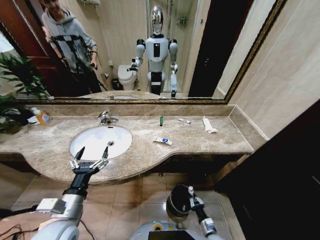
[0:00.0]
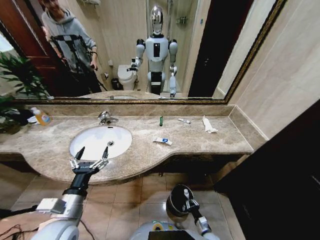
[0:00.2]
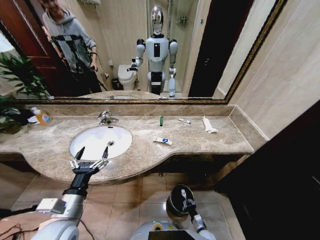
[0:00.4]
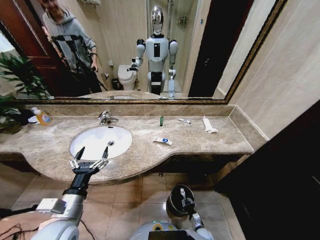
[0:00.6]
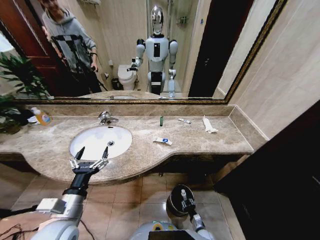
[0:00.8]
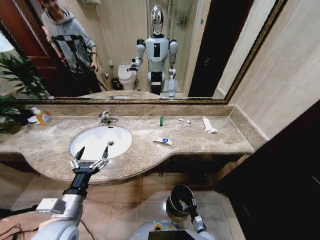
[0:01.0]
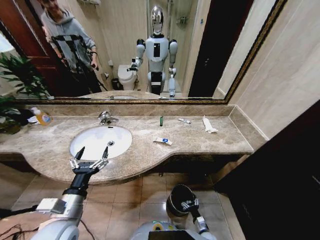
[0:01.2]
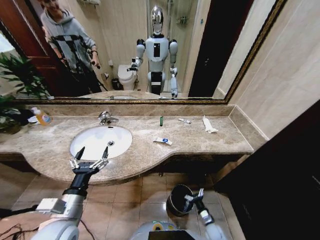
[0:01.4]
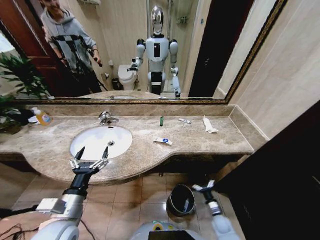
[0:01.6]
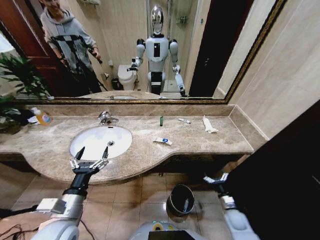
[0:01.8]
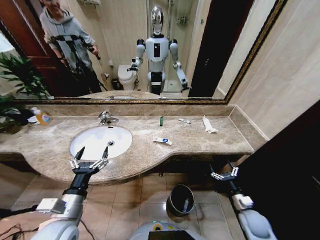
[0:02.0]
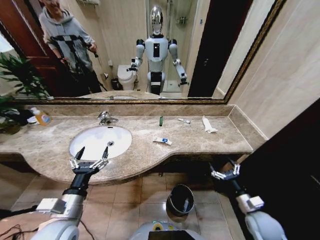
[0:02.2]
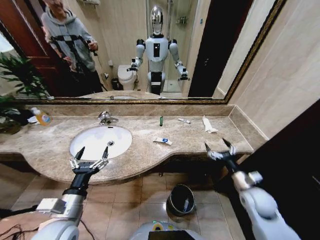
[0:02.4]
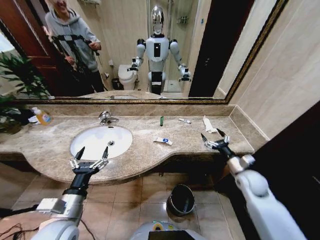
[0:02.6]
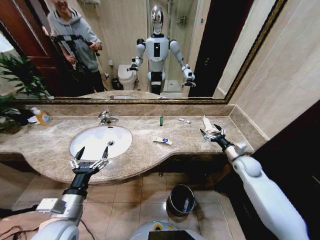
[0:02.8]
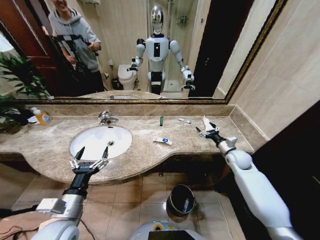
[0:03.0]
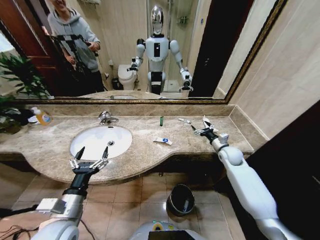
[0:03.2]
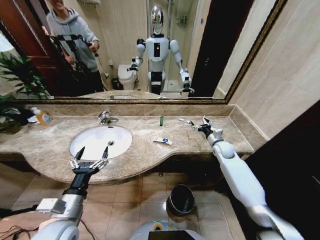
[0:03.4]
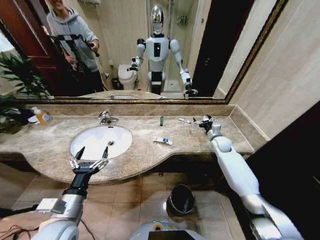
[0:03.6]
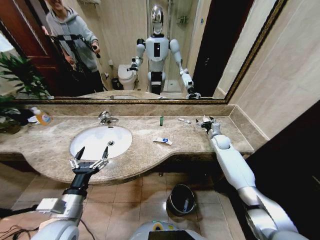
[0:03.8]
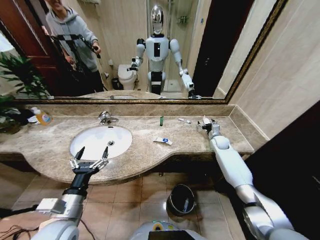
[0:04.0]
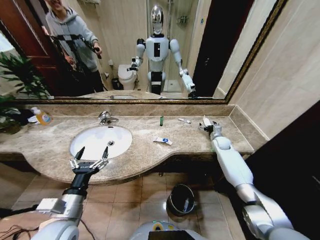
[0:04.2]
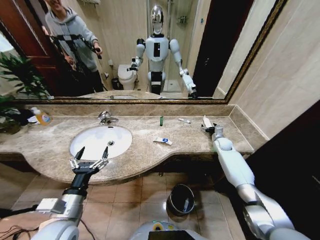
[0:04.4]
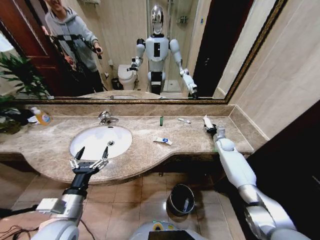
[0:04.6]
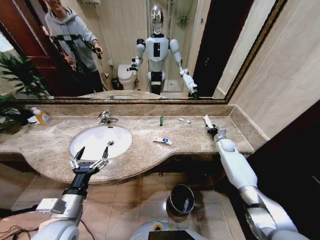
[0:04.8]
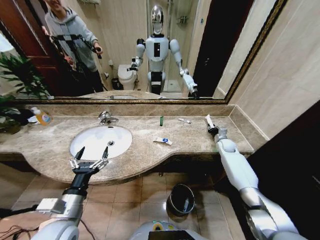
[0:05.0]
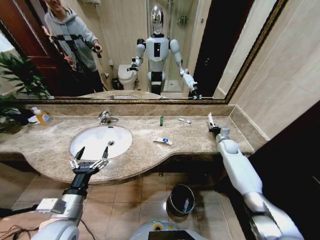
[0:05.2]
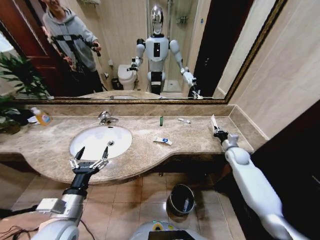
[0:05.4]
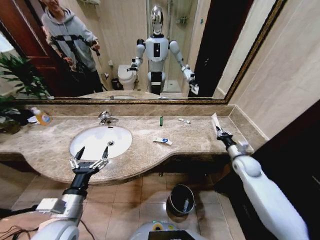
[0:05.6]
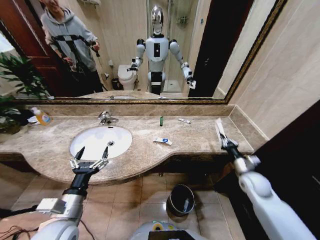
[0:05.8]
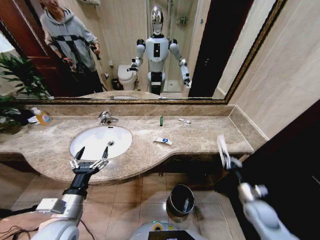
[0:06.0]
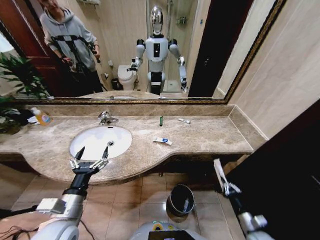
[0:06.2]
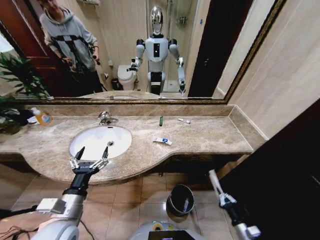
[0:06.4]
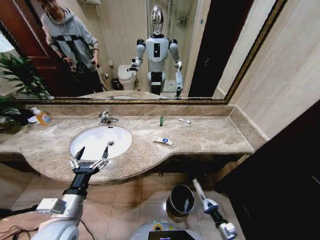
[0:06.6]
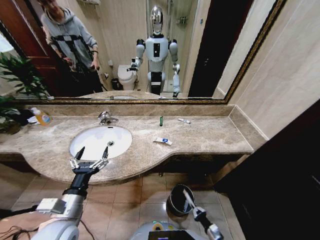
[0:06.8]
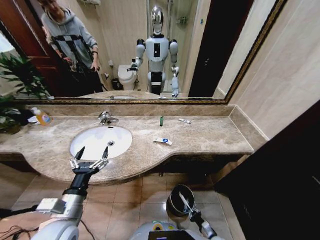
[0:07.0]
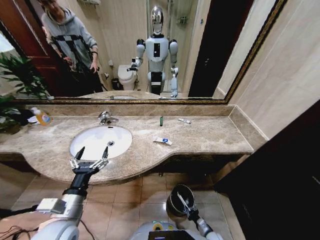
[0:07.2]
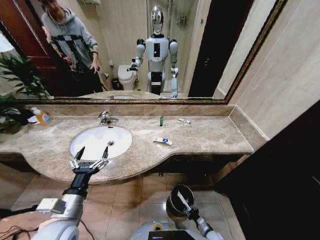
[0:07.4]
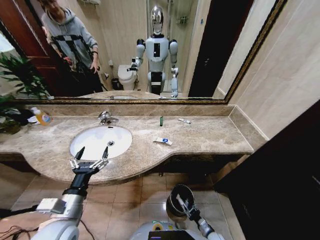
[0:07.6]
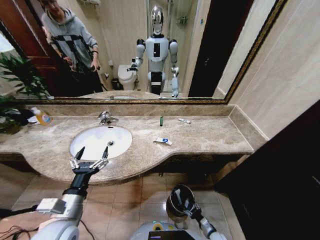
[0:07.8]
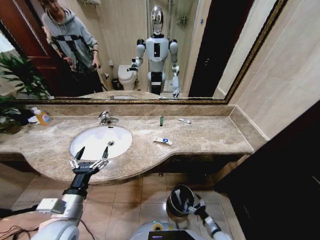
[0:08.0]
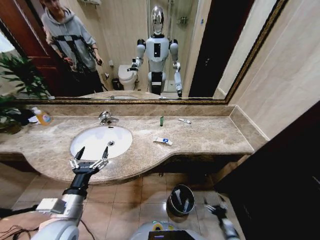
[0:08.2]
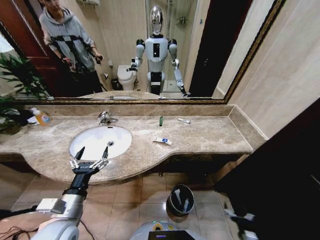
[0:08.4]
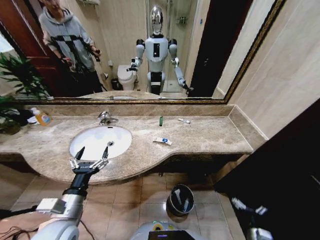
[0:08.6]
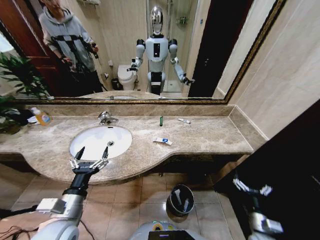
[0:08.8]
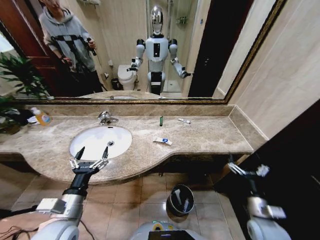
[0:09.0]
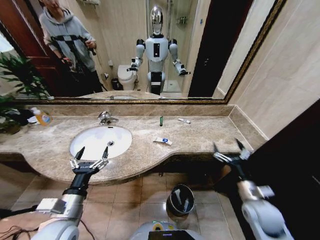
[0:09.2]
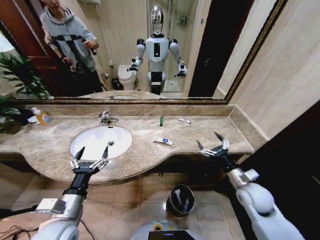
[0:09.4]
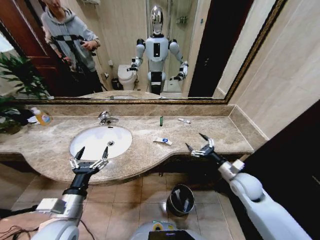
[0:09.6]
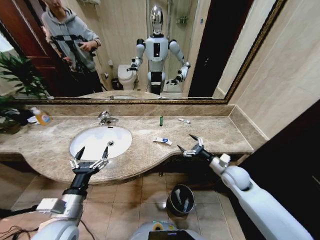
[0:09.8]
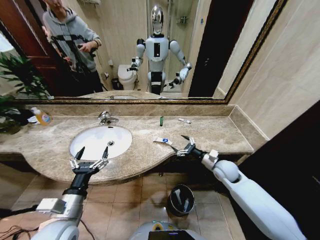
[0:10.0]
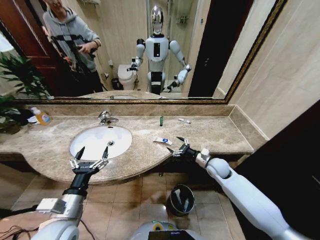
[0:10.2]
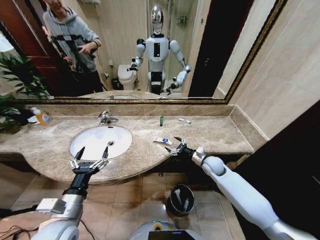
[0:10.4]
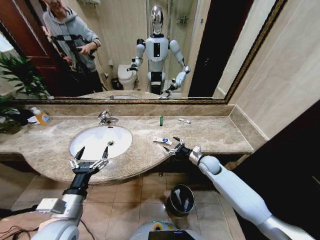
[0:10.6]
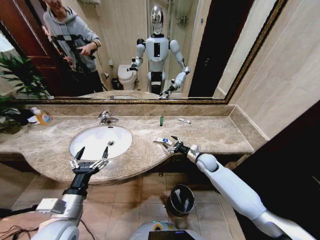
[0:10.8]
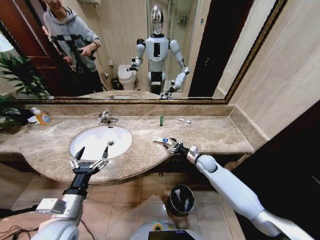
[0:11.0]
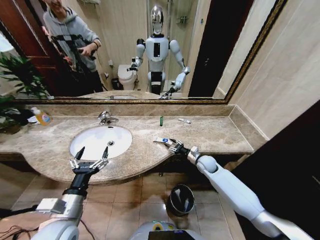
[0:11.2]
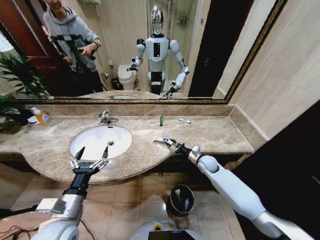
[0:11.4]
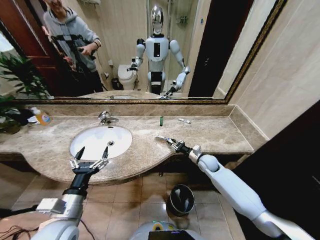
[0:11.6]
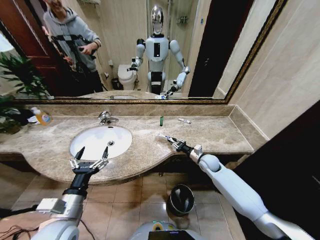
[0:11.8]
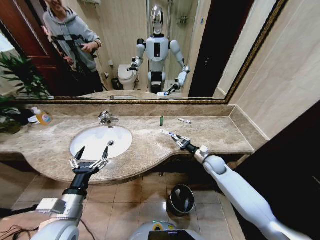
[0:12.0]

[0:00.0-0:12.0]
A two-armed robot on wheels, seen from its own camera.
Task of the whole recording: Pick up the trash from the sink and place it in the trash bin.
0:00.0 to 0:01.6: The right gripper is displaced forward and to the right by roughly 10 cm, moves approximately 10 cm downward and comes back, and opens its fingers.
0:01.6 to 0:03.0: The right gripper is displaced upward and forward by roughly 35 cm.
0:03.0 to 0:04.4: The right gripper shifts roughly 10 cm forward.
0:04.4 to 0:06.0: The right gripper travels backward by approximately 35 cm, and closes.
0:06.0 to 0:07.6: The right gripper is displaced downward by some 25 cm, and opens.
0:07.6 to 0:09.0: The right gripper travels upward by about 35 cm, and opens.
0:09.0 to 0:10.4: The right gripper is displaced forward by about 25 cm.
0:10.4 to 0:12.0: The right gripper closes up.

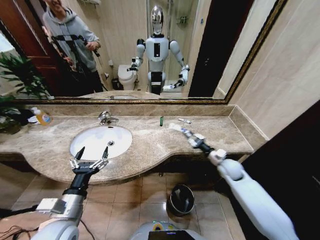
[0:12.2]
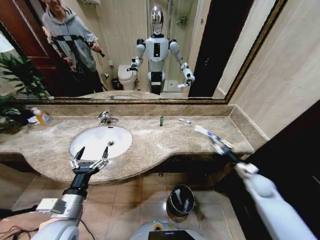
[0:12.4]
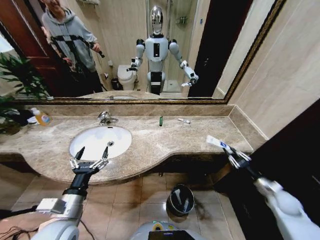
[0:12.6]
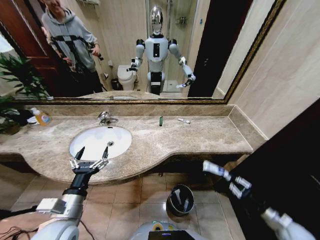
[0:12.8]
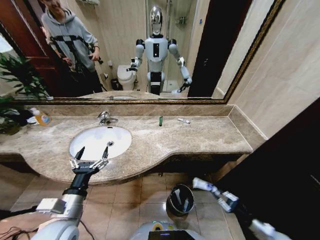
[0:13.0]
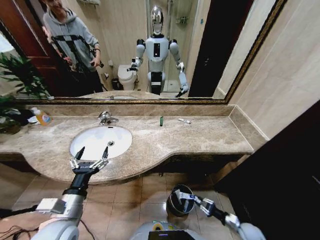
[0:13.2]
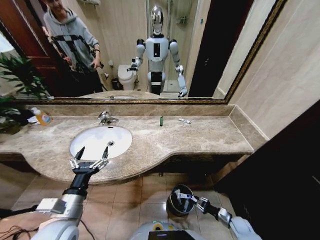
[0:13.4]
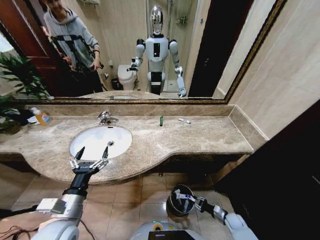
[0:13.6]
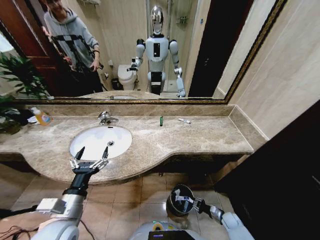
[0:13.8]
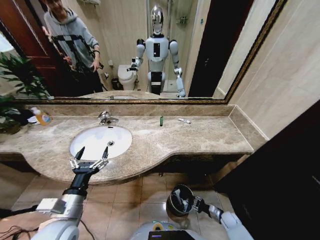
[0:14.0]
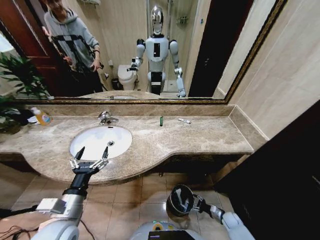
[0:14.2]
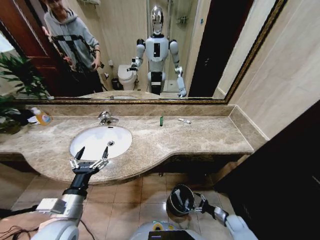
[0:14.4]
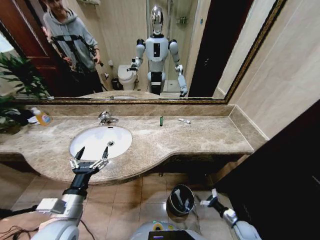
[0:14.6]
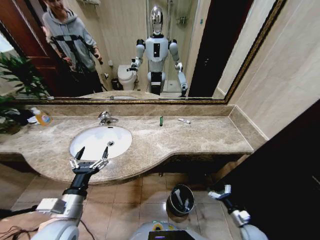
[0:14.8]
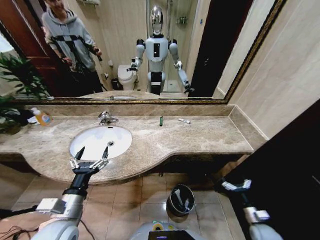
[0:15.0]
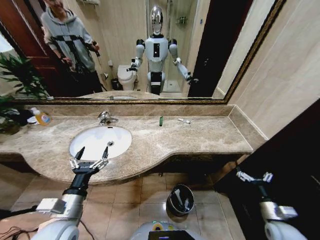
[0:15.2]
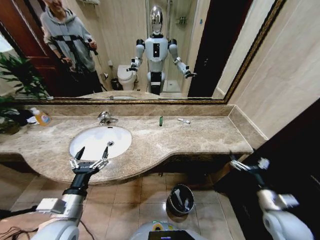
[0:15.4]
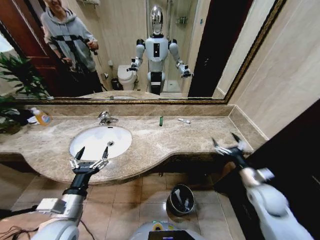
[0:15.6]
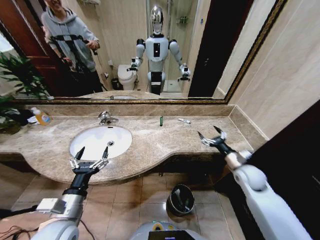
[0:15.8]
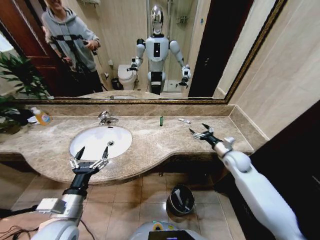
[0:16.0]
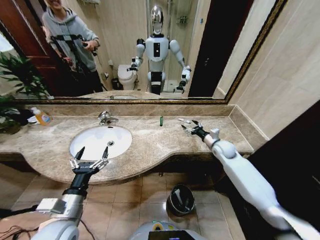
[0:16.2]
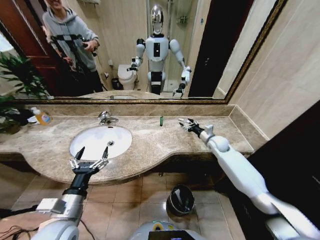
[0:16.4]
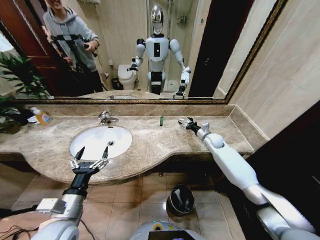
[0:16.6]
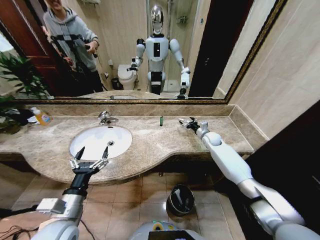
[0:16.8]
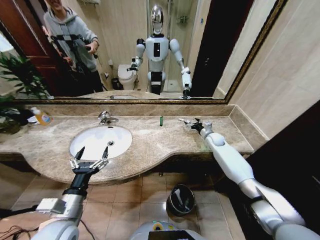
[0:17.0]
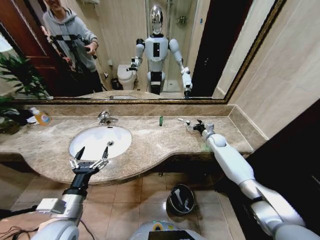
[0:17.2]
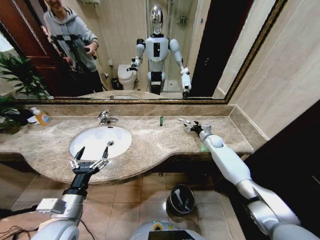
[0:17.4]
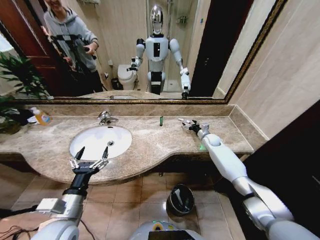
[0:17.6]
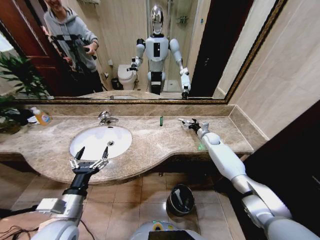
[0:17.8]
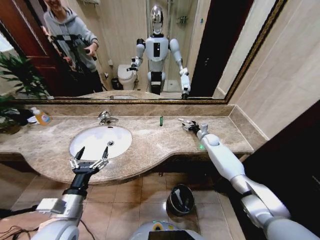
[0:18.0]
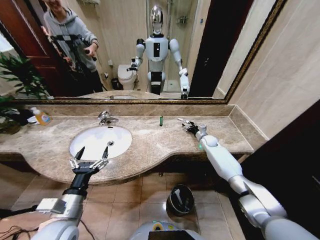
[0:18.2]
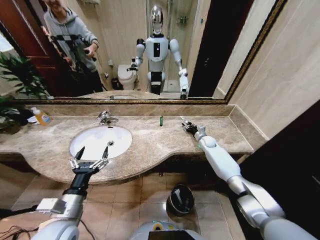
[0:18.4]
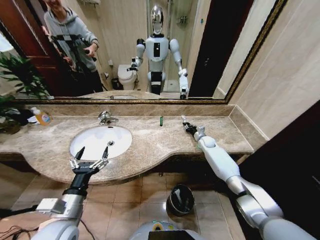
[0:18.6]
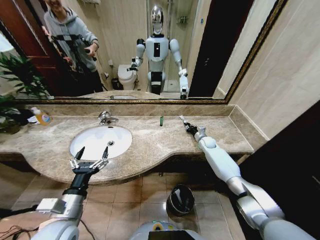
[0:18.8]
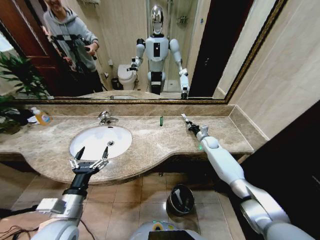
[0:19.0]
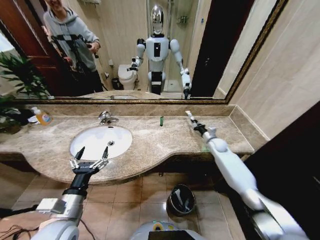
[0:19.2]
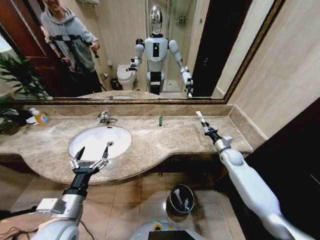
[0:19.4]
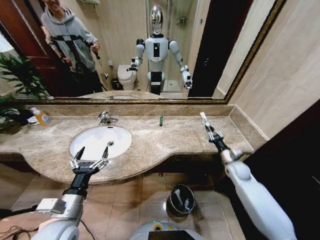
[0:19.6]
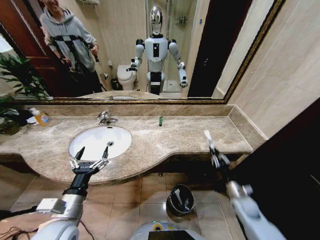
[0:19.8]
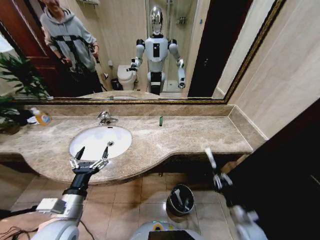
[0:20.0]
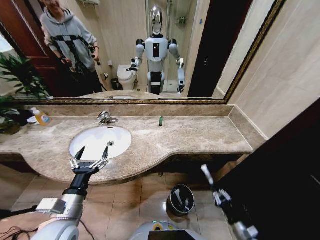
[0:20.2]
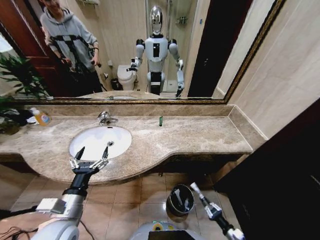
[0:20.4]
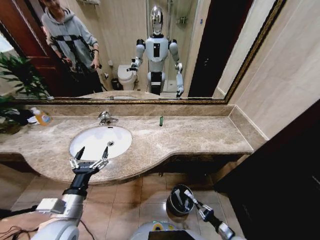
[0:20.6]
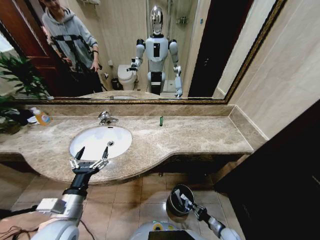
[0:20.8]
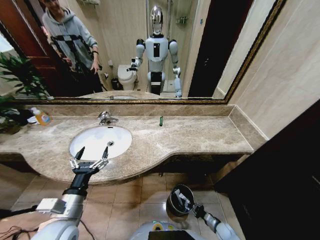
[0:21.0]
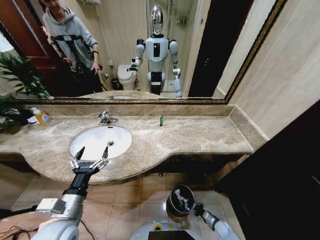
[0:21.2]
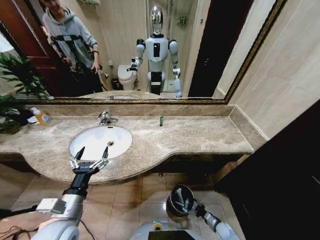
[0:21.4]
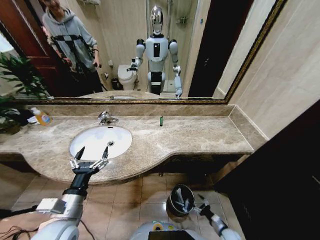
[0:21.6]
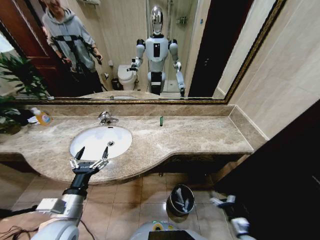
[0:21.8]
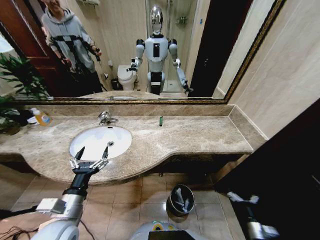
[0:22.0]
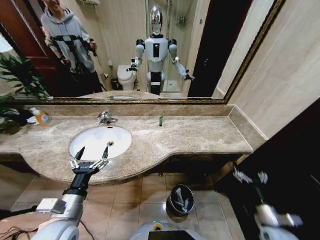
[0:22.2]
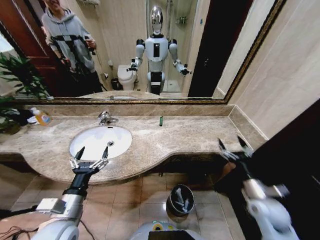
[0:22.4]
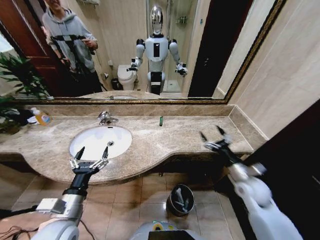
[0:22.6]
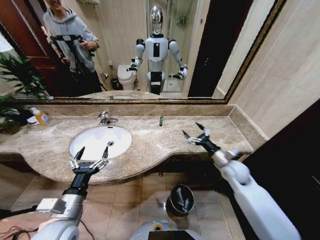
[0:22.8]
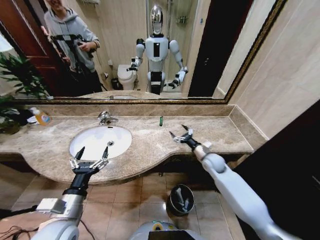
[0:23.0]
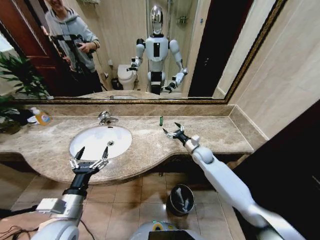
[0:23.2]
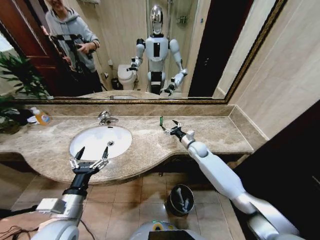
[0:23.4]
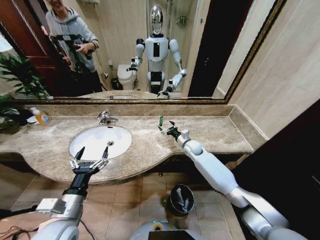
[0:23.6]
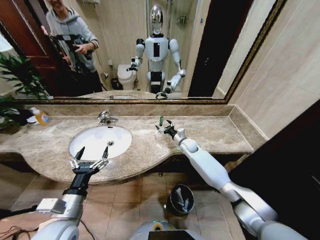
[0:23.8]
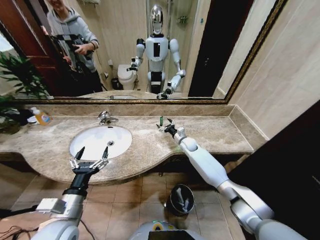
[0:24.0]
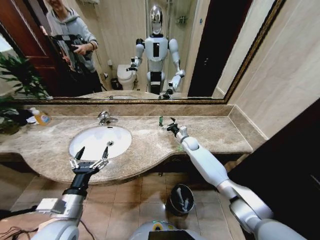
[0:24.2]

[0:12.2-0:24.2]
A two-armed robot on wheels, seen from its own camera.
Task of the whole recording: Pick up the trash from the sink and place it in the trash bin.
0:12.2 to 0:13.8: The right gripper is displaced downward and backward by roughly 35 cm.
0:13.8 to 0:15.2: The right gripper is displaced upward by approximately 25 cm, and opens.
0:15.2 to 0:16.6: The right gripper goes roughly 40 cm forward.
0:16.6 to 0:18.2: The right gripper goes some 5 cm downward.
0:18.2 to 0:19.8: The right gripper heads backward, covering some 30 cm, and closes up.
0:19.8 to 0:21.2: The right gripper shifts some 25 cm downward.
0:21.2 to 0:22.6: The right gripper heads upward, covering about 40 cm, and opens its fingers.
0:22.6 to 0:24.2: The right gripper is displaced forward and to the left by some 30 cm.
